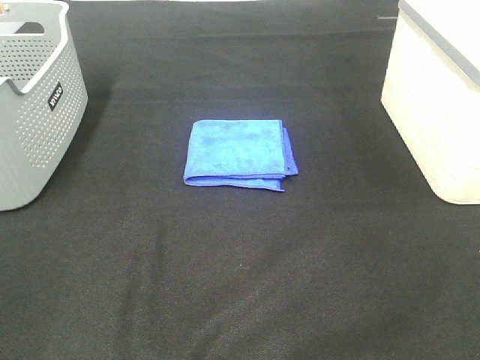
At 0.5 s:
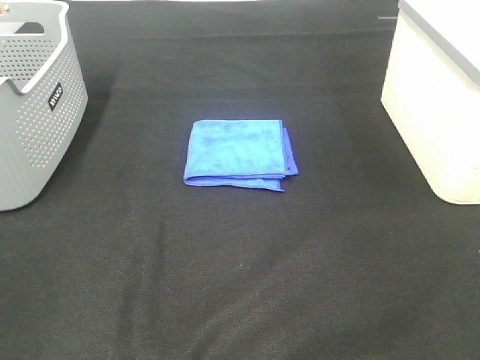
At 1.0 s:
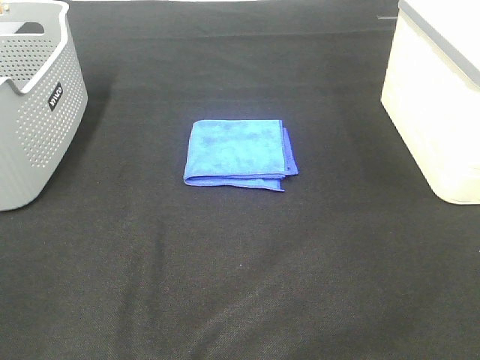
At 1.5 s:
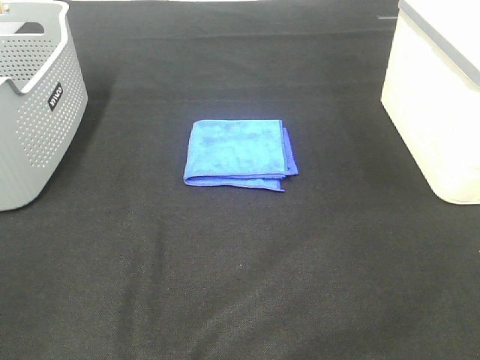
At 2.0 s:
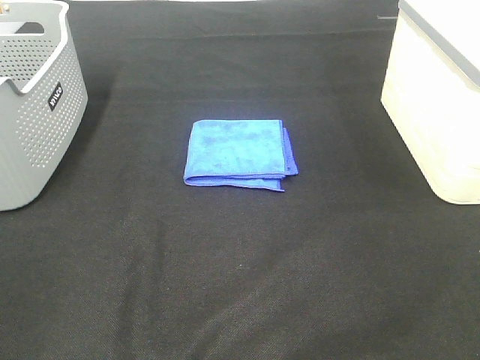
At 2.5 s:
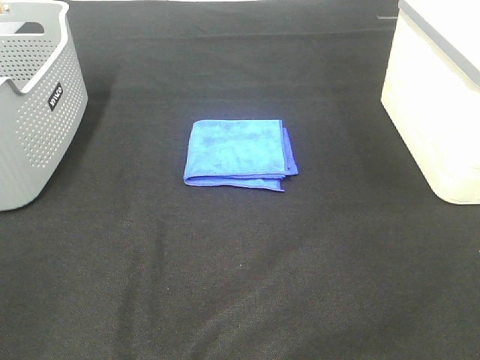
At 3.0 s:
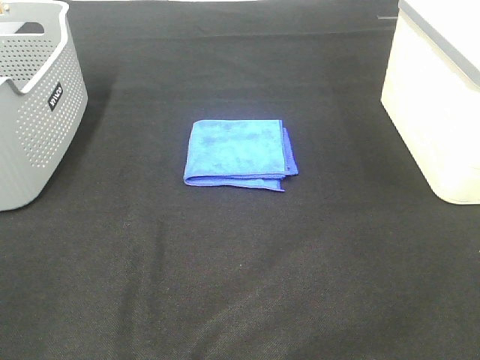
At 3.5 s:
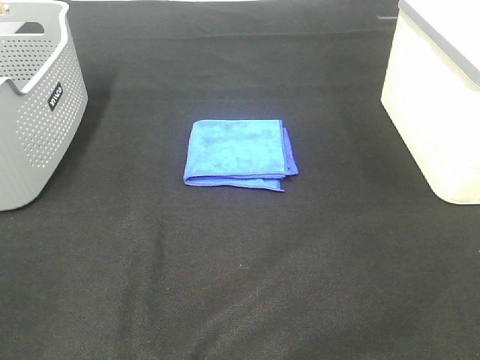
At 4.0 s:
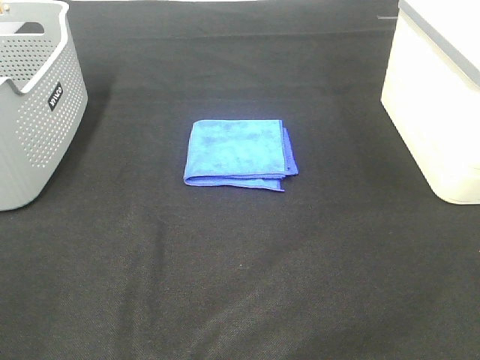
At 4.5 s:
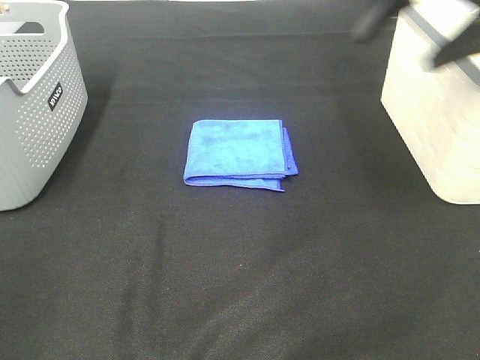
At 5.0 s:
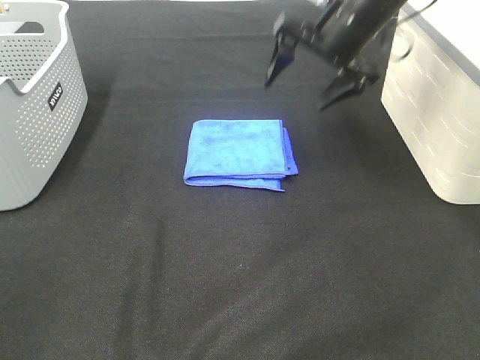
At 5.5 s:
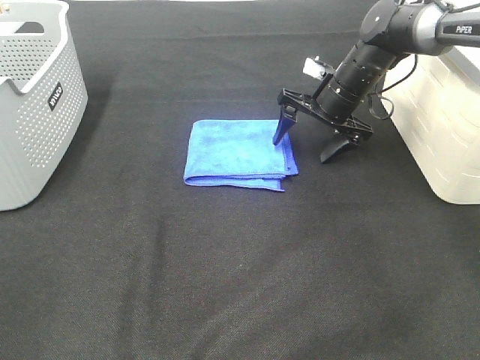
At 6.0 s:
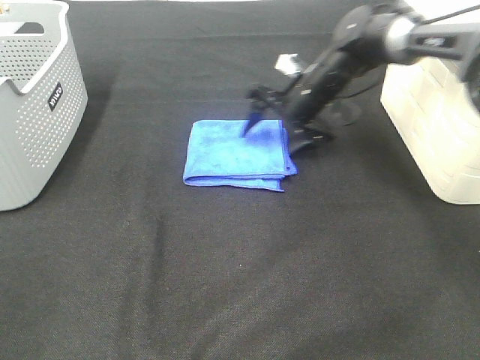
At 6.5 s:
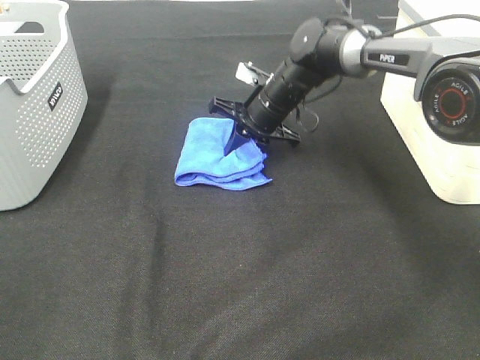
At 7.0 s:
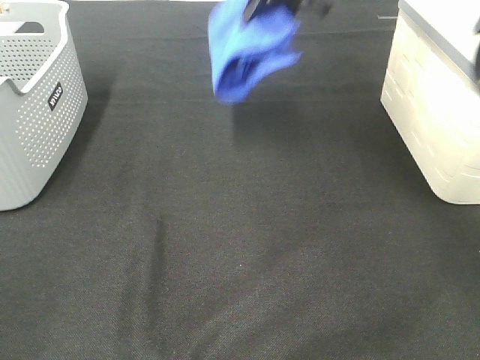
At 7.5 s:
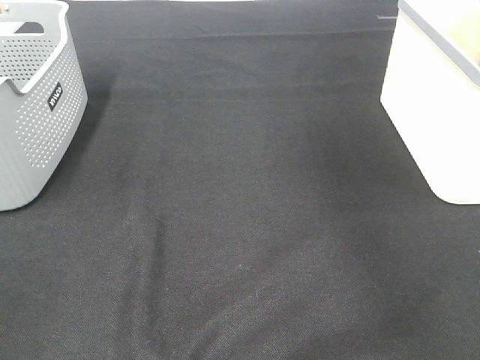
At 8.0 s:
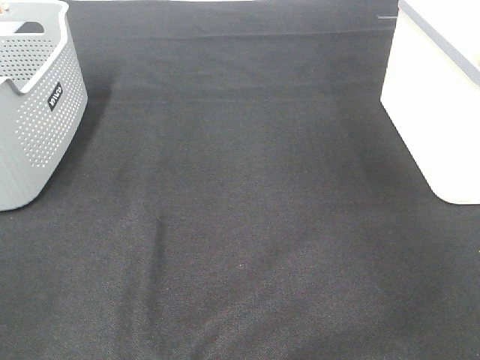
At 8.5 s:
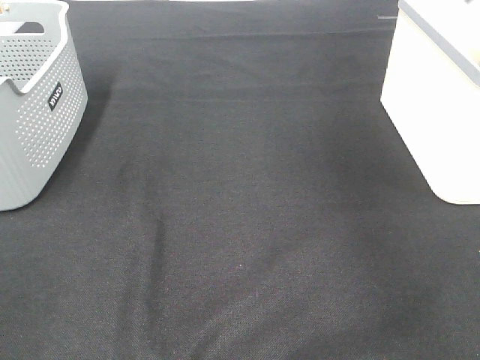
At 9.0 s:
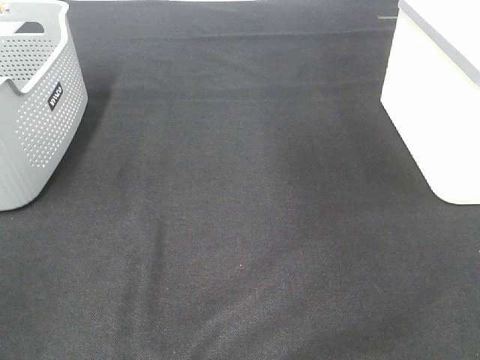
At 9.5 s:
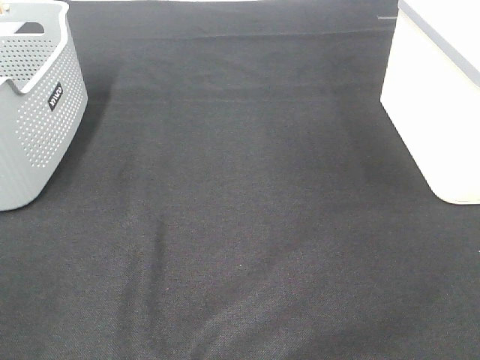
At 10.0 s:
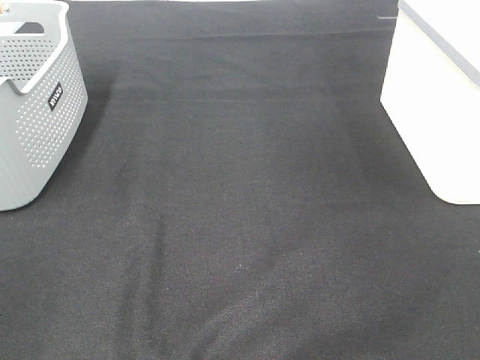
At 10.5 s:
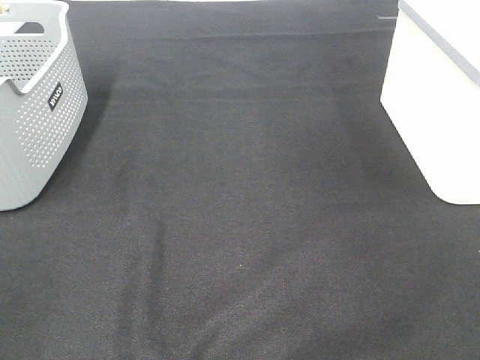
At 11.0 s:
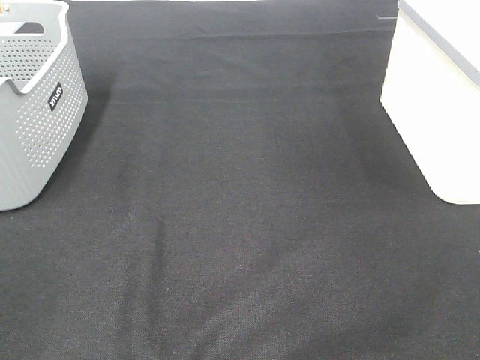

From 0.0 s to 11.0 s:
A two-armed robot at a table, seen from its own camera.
Step, from 0.0 s to 6.0 s: Right hand: grab the folded blue towel.
Step, from 6.5 s to 8.0 s: Right hand: place the blue towel in right basket.
From 0.0 s to 3.5 s: The two grippers keep their place.
From 3.5 s to 5.5 s: The right gripper travels forward by approximately 50 cm.
From 5.5 s to 7.5 s: The right gripper travels upward and to the right by about 40 cm, and closes its fingers.

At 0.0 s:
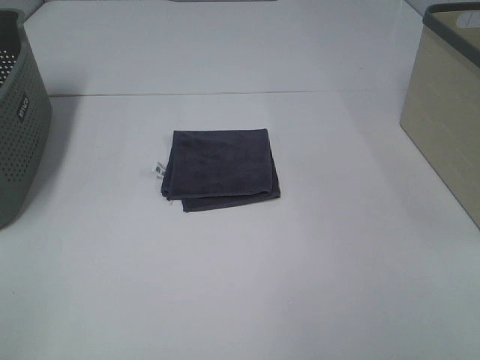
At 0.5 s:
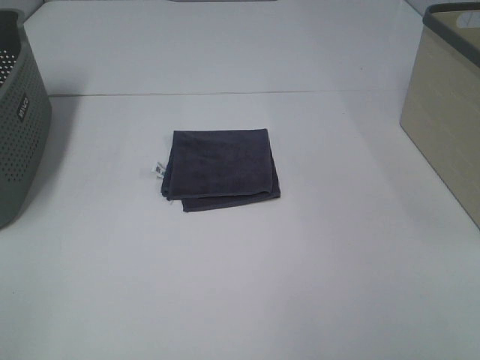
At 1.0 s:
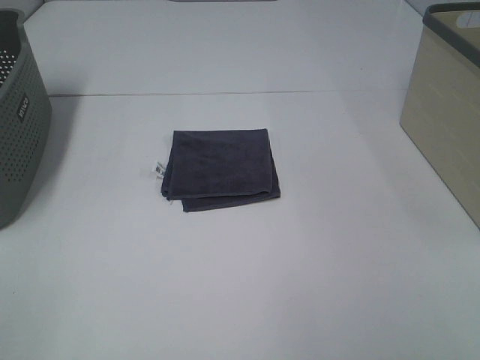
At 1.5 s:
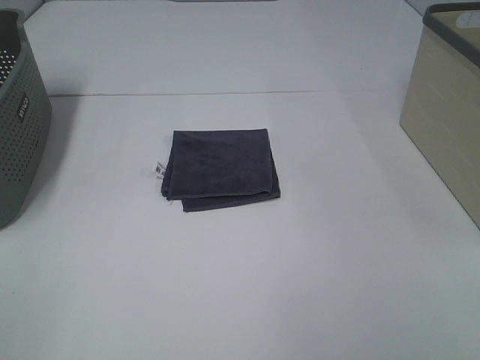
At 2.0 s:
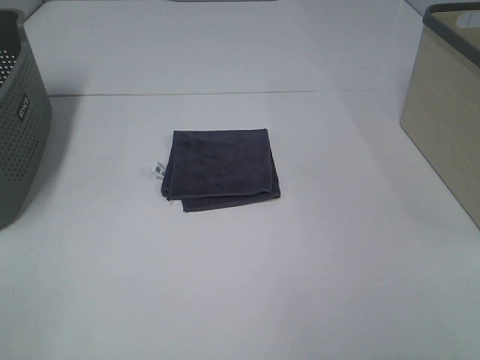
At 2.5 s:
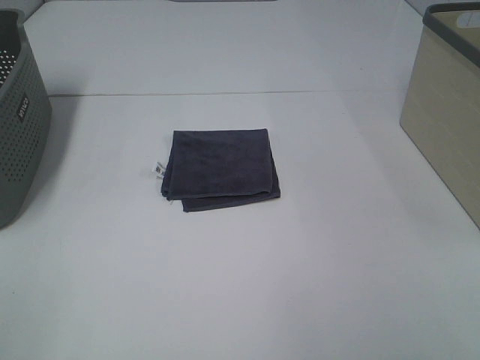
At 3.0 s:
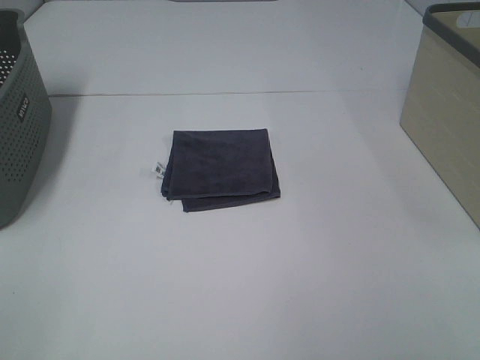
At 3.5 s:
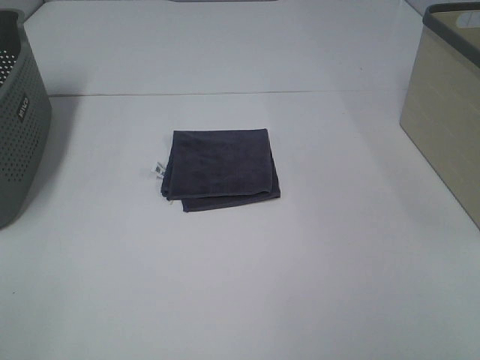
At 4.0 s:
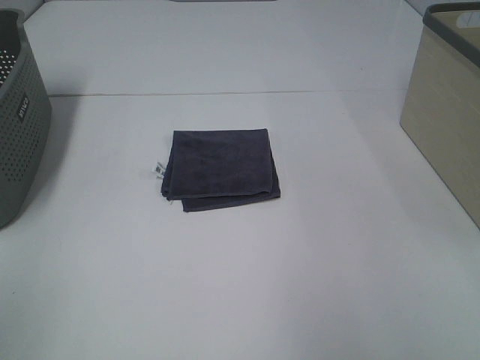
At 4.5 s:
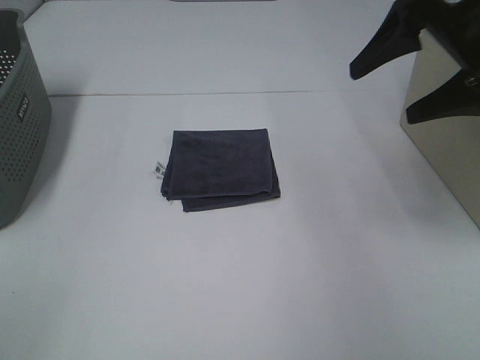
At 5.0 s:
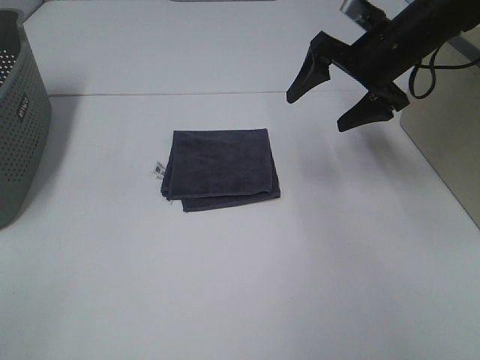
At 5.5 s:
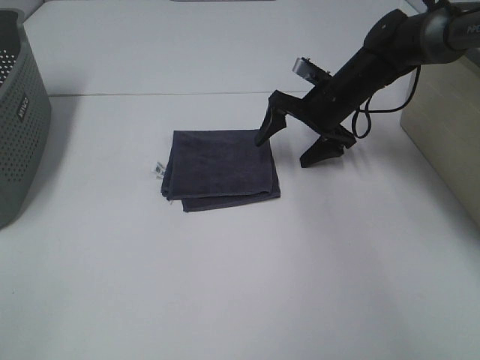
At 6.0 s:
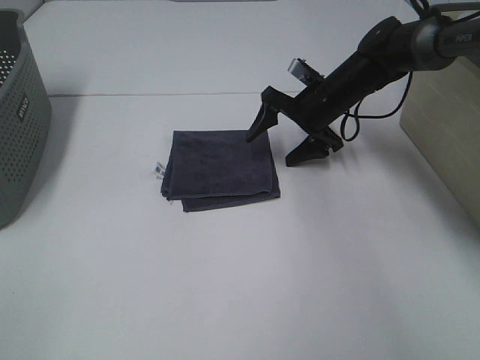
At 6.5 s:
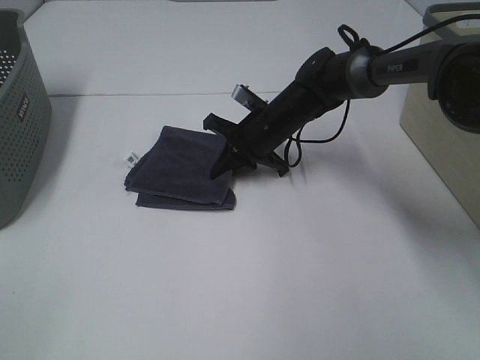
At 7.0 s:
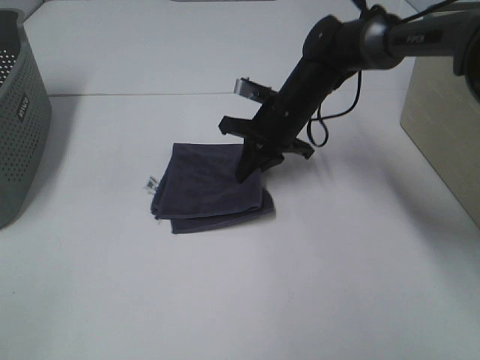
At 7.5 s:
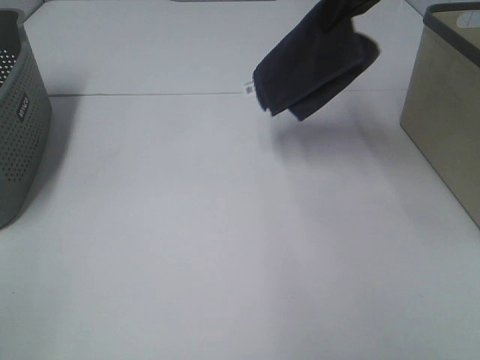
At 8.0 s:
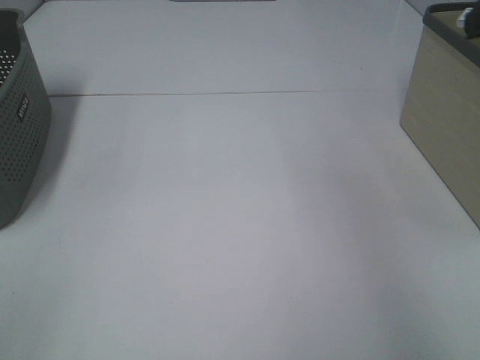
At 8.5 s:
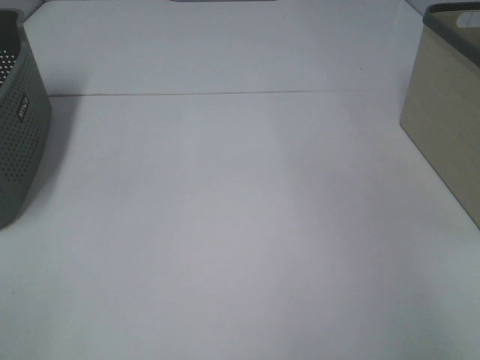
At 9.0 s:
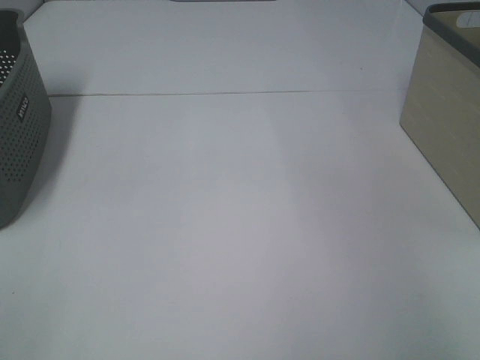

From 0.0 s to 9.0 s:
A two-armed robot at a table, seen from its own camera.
Step, from 0.0 s to 6.5 s: Right hand: grab the folded grey towel.
Step, from 7.0 s to 8.5 s: Right hand: place the grey towel in right basket.
From 0.0 s to 2.0 s: Neither gripper changes place.
From 2.0 s to 4.5 s: The right gripper is displaced forward by approximately 30 cm.
From 4.5 s to 7.0 s: The right gripper shifts about 25 cm downward, to the left and forward, and closes.
From 7.0 s to 9.0 s: The right gripper goes roughly 40 cm to the right and upward, and opens.

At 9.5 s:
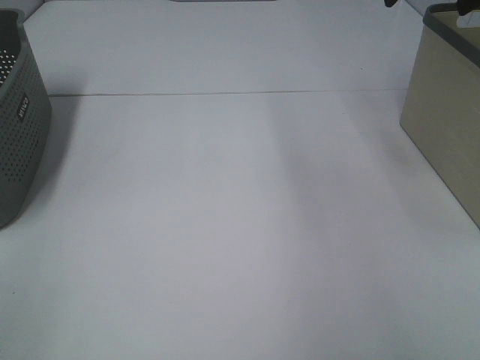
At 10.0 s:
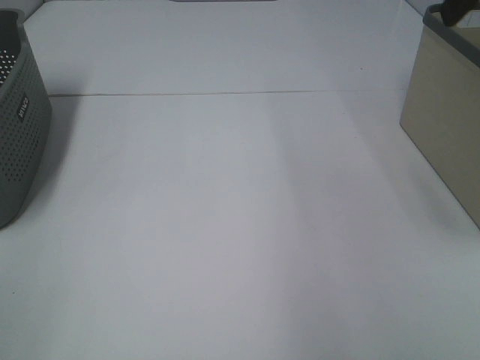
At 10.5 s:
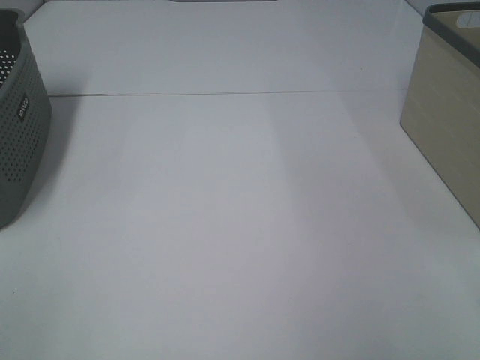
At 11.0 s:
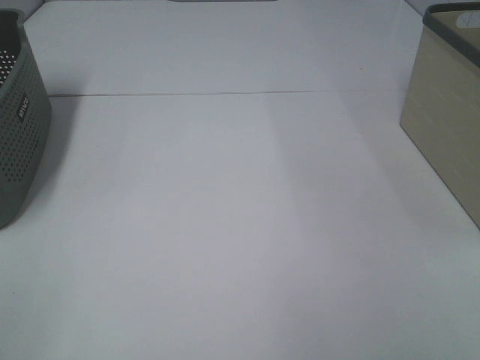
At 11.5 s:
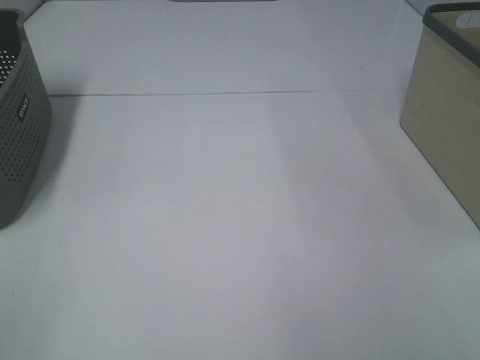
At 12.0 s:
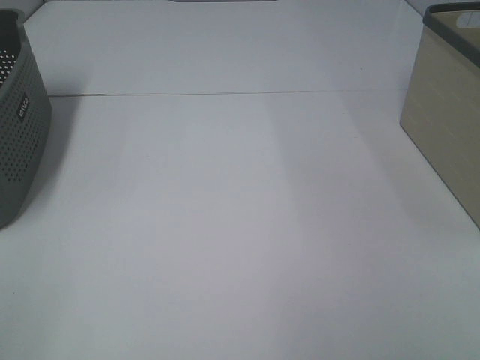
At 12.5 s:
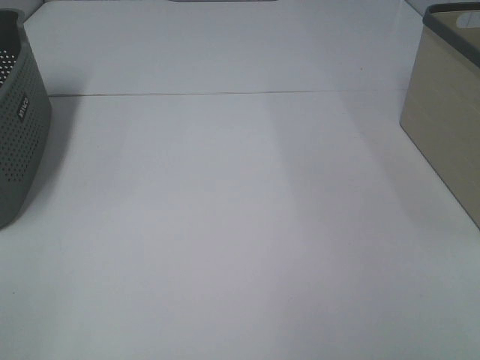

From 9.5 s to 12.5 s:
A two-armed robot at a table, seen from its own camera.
From 11.0 s to 12.5 s: Both grippers stay put.

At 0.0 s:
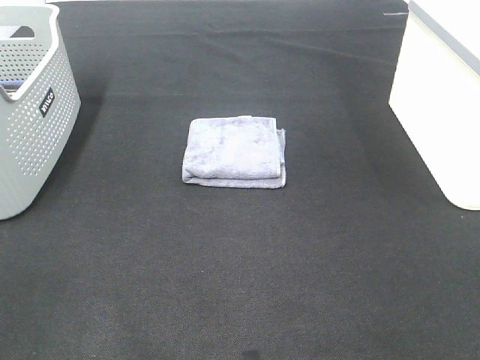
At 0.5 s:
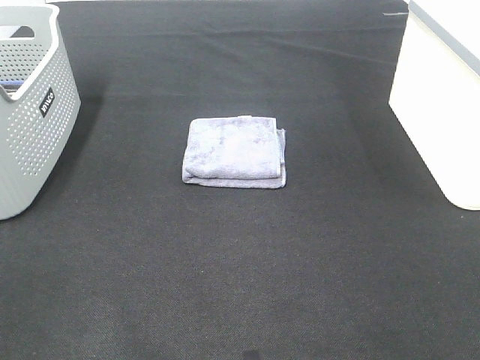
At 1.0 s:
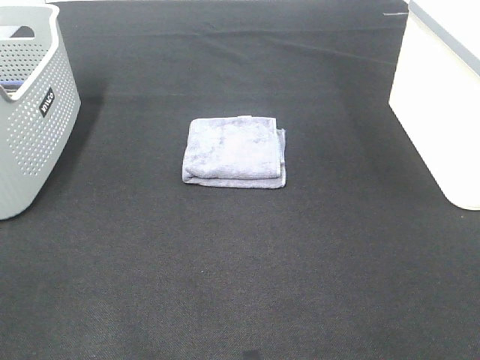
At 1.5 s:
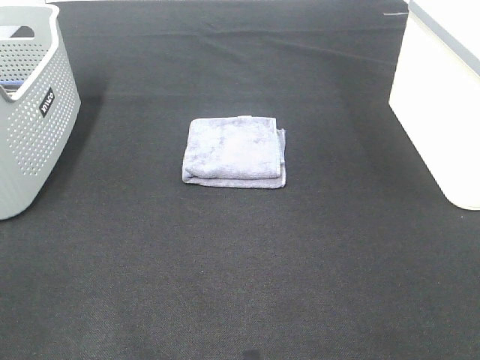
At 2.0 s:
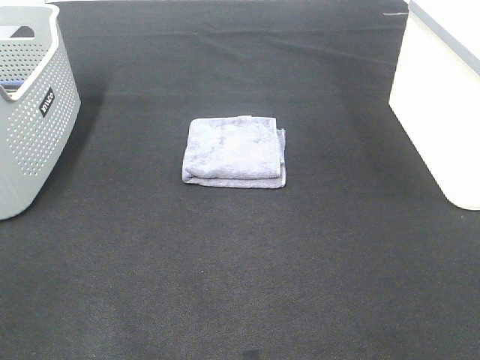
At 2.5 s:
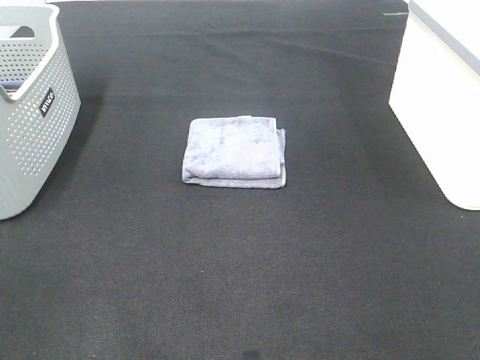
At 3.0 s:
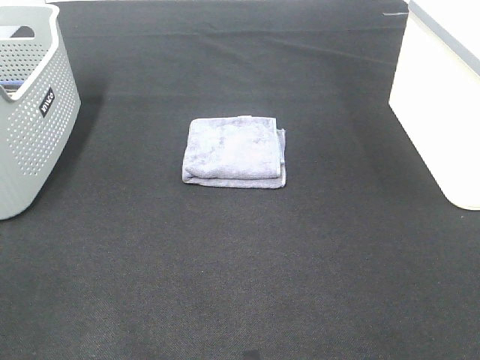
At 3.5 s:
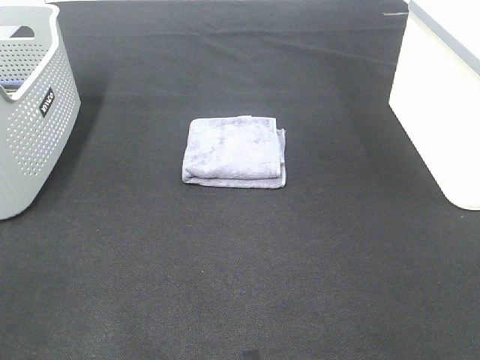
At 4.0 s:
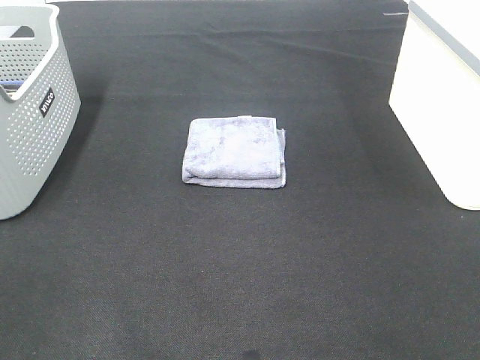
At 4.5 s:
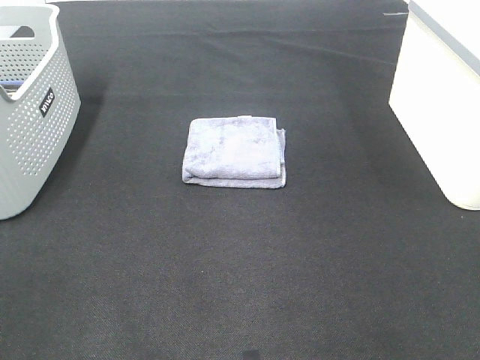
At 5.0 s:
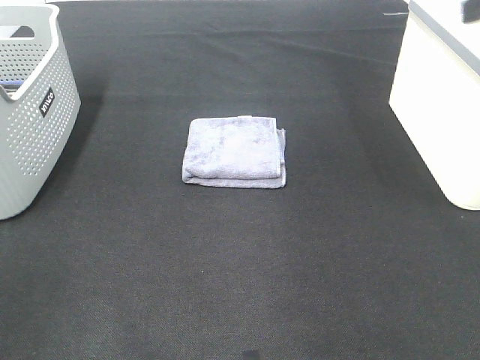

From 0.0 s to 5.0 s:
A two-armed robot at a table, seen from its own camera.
From 0.0 s to 2.5 s: Both grippers stay put.
